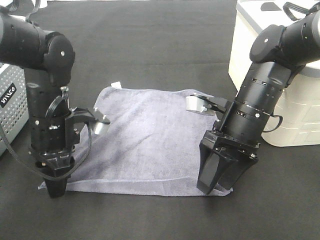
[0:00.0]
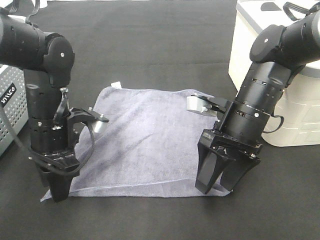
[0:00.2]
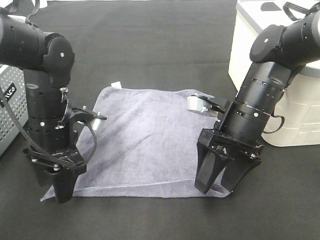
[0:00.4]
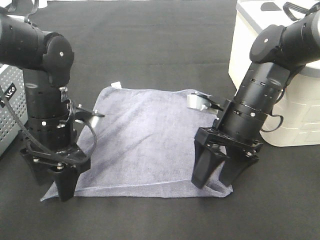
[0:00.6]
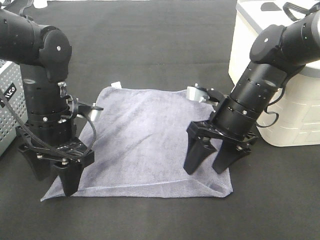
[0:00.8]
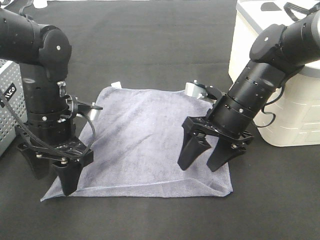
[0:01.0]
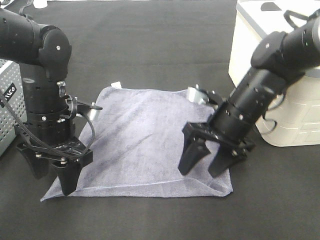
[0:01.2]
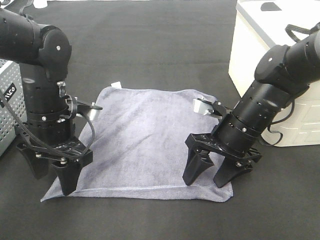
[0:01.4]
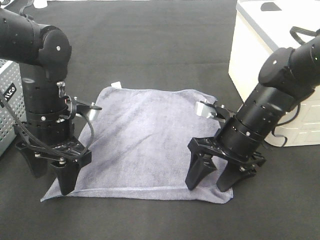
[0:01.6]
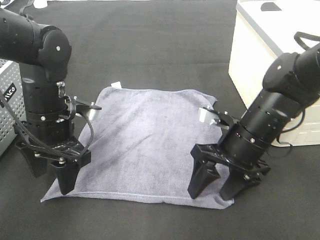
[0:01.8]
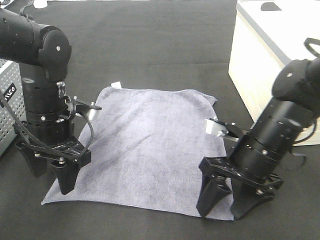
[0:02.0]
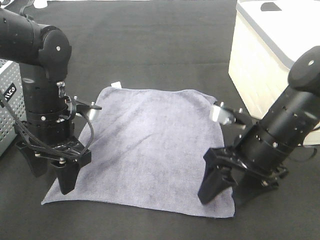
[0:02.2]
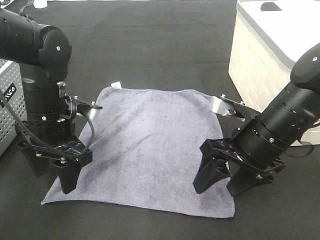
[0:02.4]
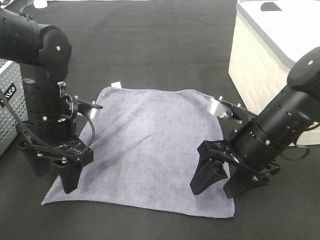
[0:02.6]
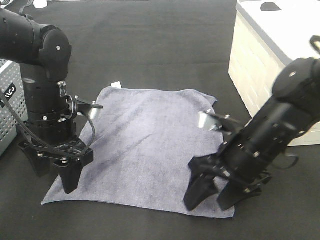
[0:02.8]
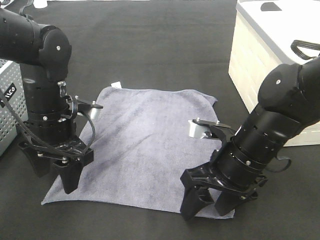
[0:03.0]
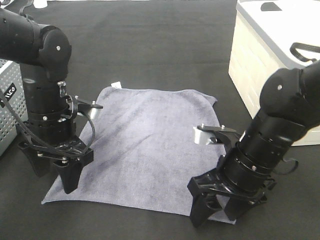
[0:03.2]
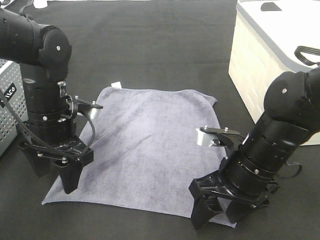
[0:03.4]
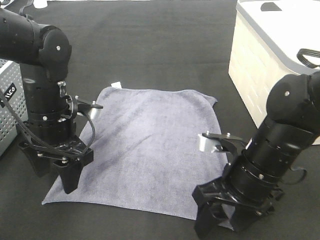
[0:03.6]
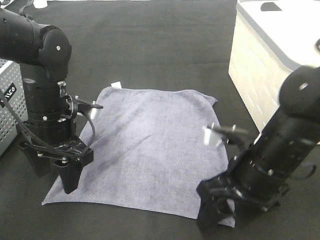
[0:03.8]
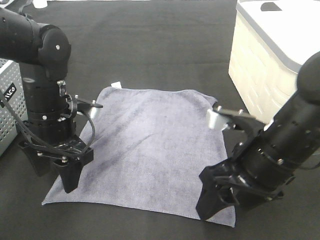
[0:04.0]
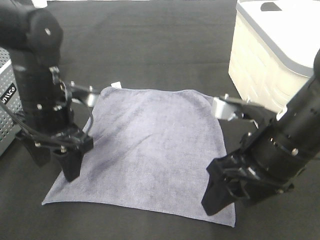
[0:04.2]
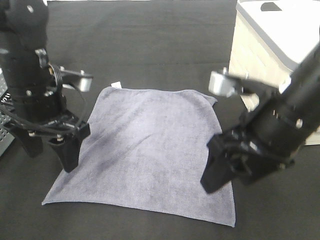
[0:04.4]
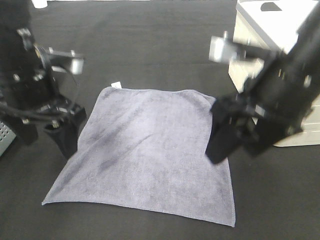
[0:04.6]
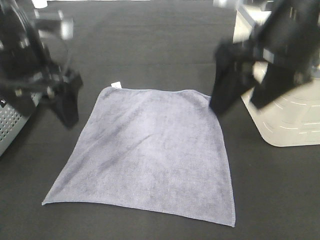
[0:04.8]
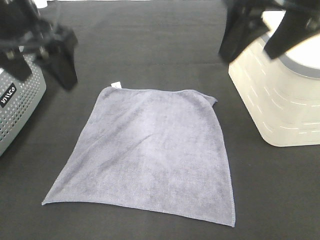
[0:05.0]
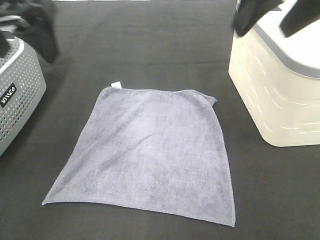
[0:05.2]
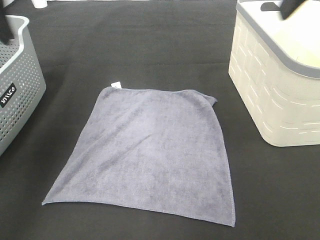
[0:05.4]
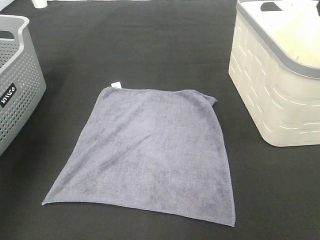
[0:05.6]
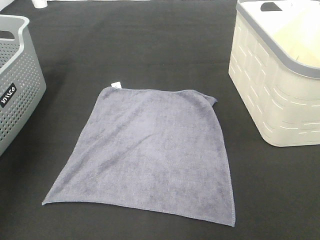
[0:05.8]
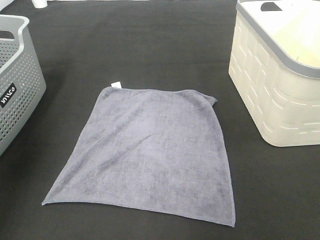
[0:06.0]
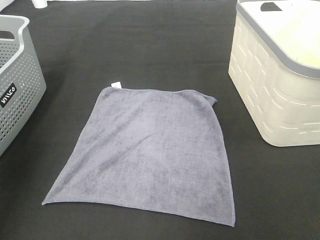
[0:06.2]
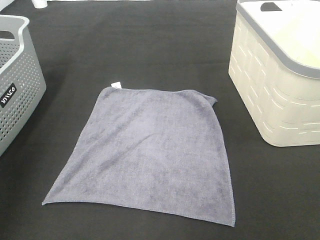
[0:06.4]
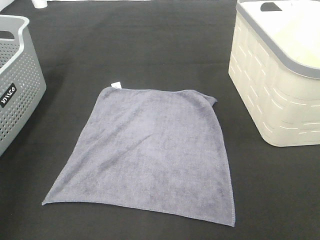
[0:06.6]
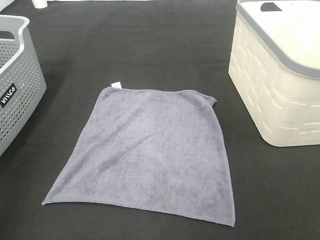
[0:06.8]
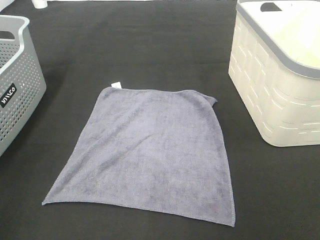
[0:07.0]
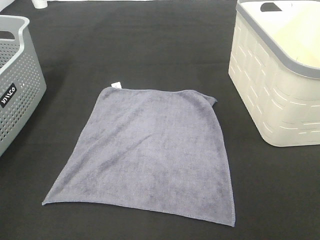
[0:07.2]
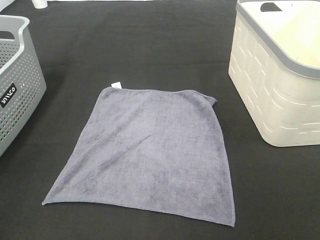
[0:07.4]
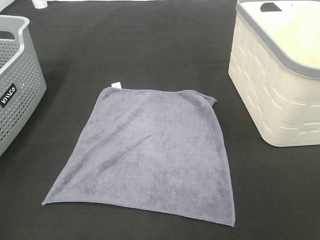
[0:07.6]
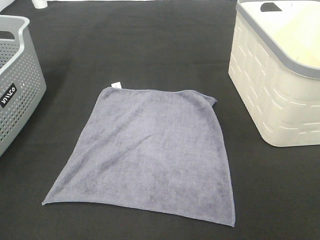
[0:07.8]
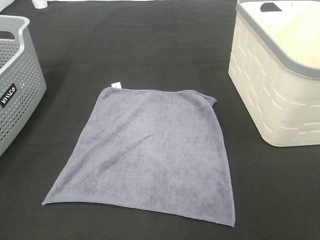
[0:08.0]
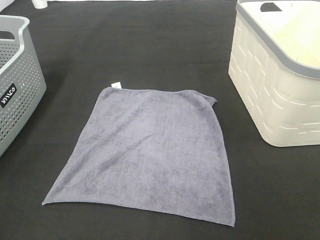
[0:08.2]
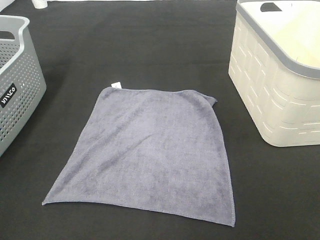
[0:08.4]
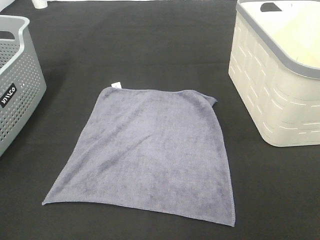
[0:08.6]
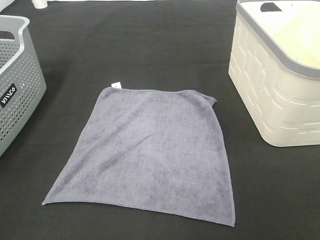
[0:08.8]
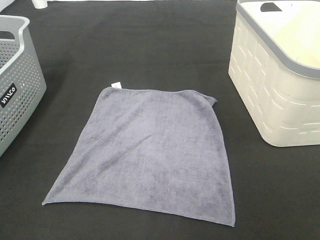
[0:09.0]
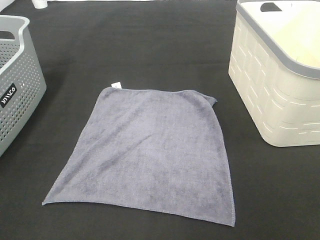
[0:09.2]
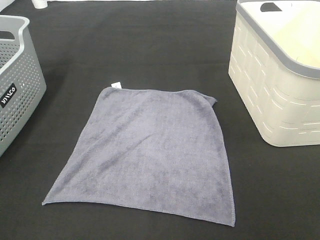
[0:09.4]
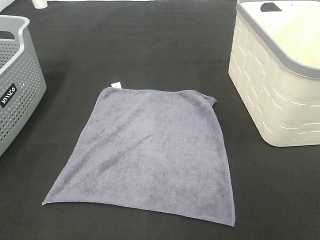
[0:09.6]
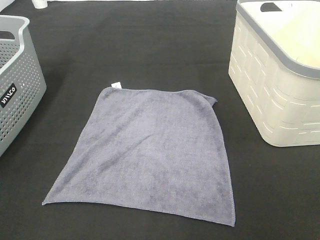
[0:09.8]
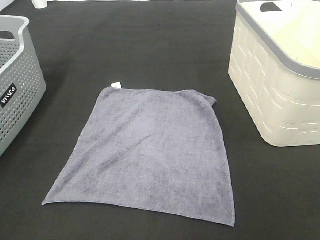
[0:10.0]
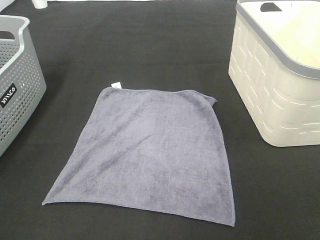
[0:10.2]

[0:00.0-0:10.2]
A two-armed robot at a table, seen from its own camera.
Task of the whole recording: Remove the towel and place it.
0:01.4 to 0:03.0: The right gripper moves backward, some 5 cm.
0:03.0 to 0:04.4: The left gripper travels upward by roughly 5 cm, while the right gripper travels upward by about 10 cm.
0:04.4 to 0:05.8: The left gripper is displaced upward and to the left by about 25 cm, while the right gripper heads upward and to the right, covering approximately 20 cm.
0:08.8 to 0:10.2: Both grippers stay put.

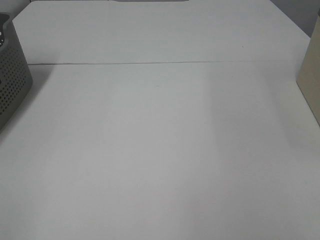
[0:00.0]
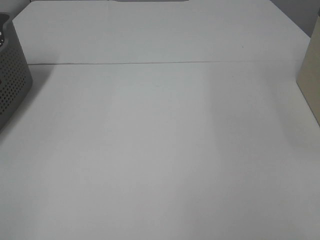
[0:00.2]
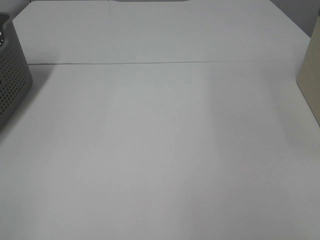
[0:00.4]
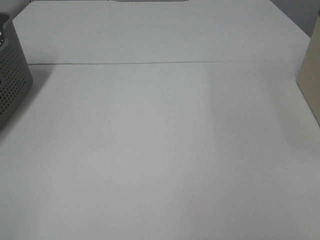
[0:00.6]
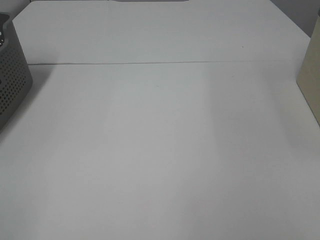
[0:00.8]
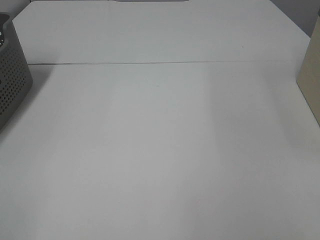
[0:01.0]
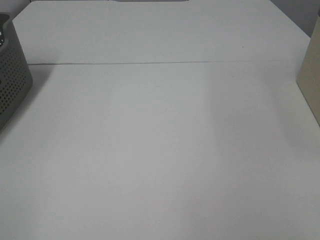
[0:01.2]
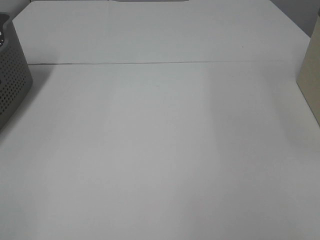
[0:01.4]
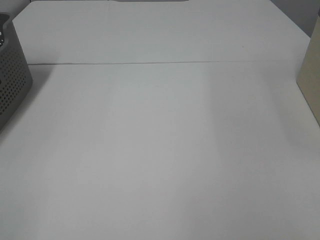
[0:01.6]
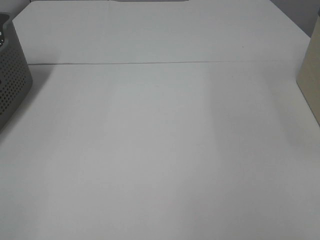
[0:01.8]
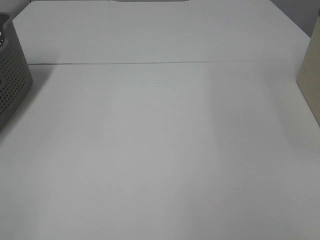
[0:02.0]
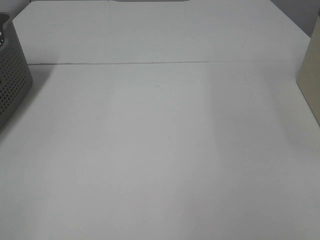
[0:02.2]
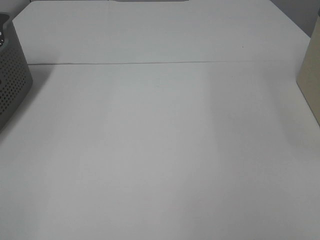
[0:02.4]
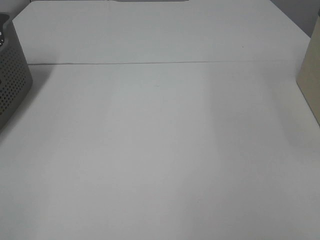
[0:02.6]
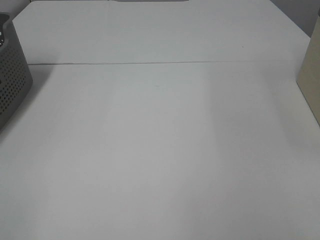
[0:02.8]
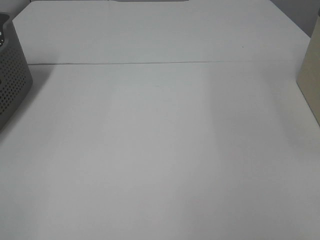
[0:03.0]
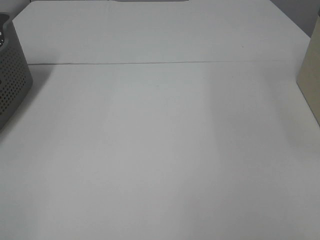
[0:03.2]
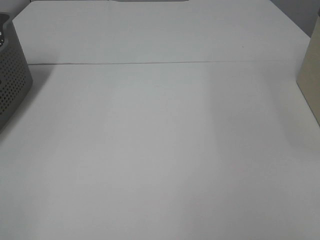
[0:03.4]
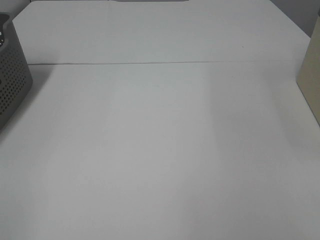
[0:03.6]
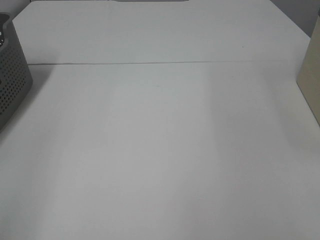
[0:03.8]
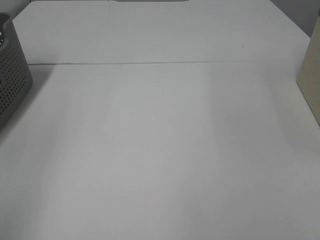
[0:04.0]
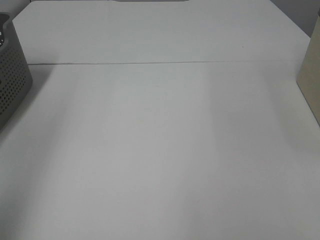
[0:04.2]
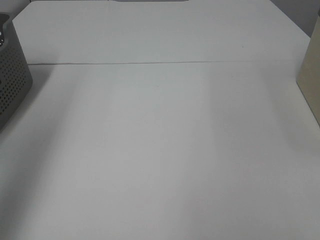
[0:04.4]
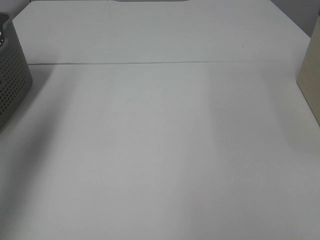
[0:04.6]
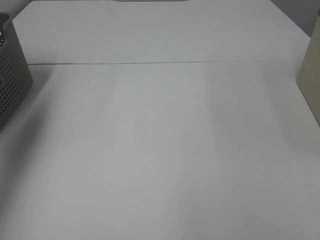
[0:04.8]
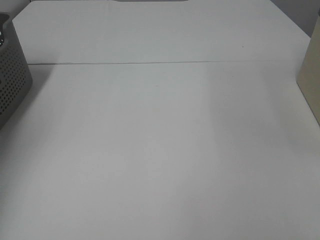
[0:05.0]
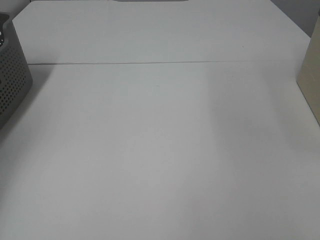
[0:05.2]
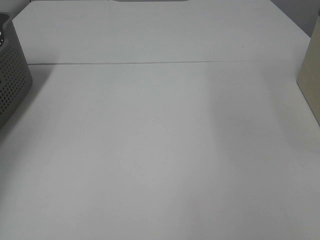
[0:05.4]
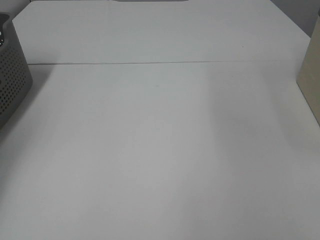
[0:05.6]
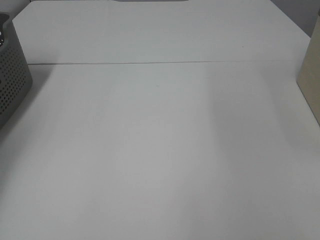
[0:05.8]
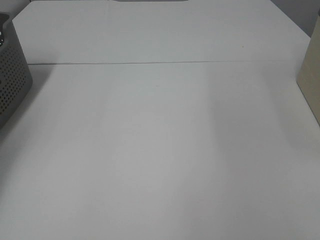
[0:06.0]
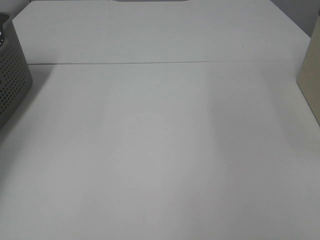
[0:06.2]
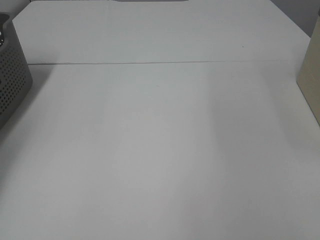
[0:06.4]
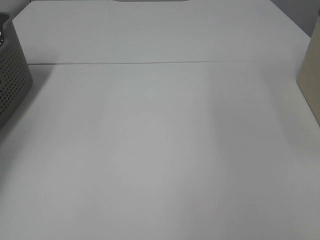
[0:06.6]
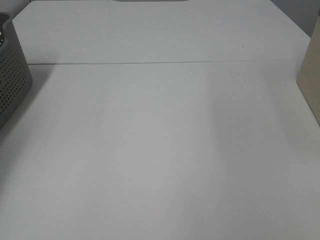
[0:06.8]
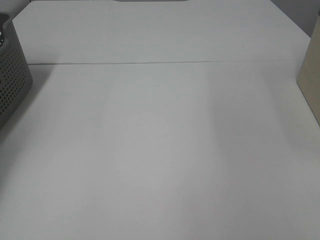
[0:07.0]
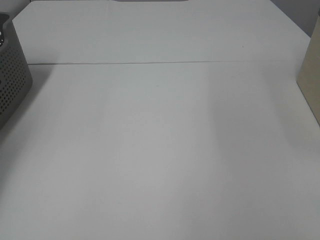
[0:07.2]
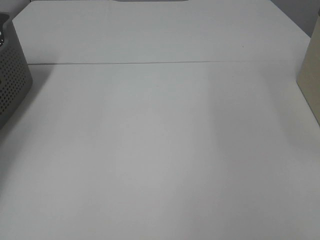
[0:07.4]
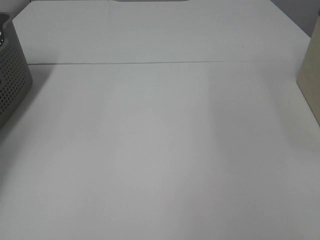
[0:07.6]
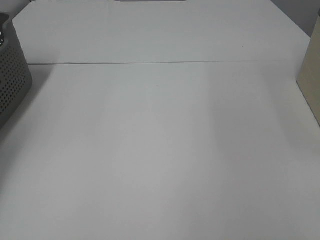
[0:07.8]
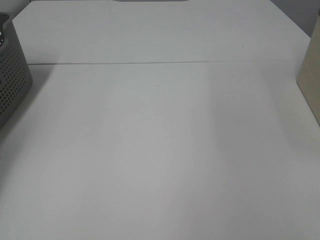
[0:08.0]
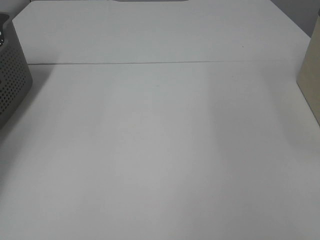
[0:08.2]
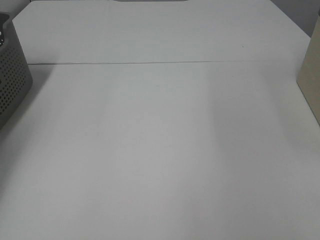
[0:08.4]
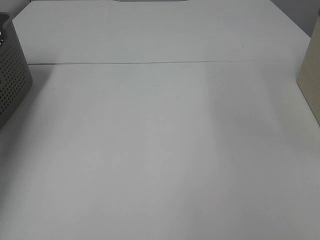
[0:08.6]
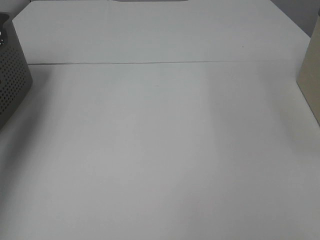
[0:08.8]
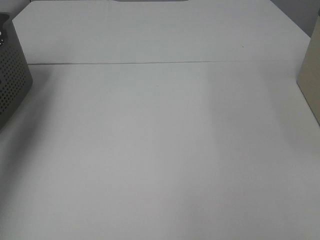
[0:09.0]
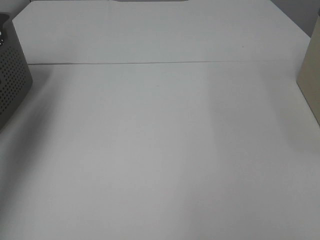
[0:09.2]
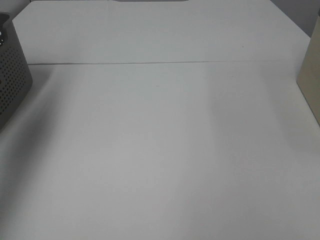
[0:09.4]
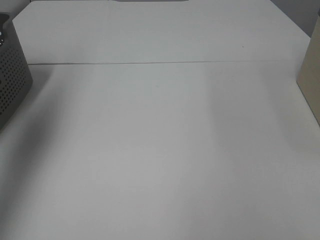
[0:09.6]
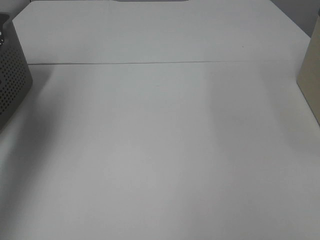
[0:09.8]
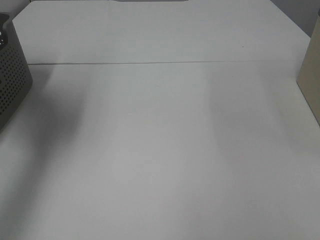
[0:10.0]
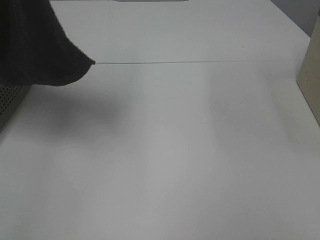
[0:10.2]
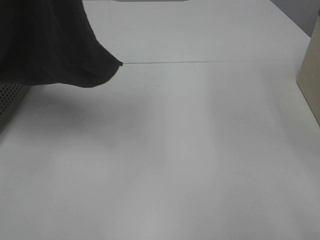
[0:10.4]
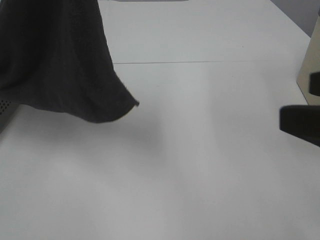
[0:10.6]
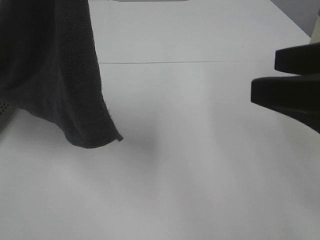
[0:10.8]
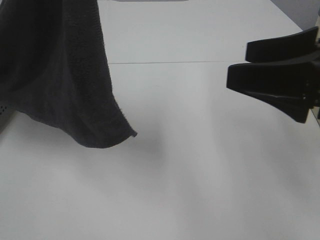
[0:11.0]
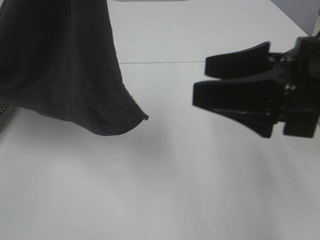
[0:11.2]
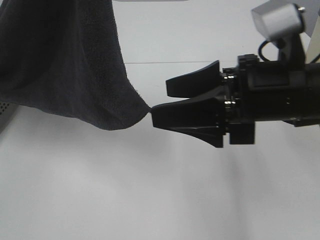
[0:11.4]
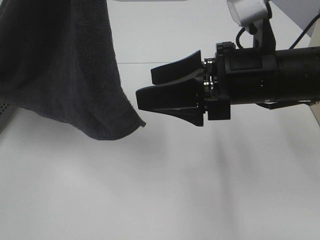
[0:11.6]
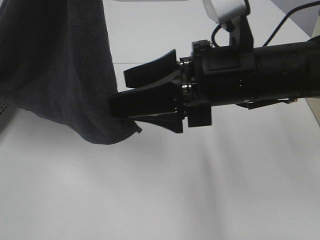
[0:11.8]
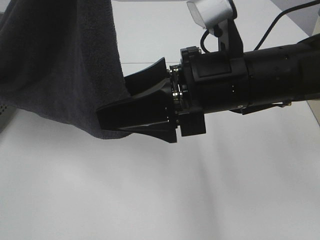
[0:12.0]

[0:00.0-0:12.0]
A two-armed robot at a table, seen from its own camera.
Task of the whole recording: Remove the towel and place it.
0:00.0 to 0:03.0: The two grippers keep their place.
0:03.0 to 0:04.4: The left gripper goes some 25 cm forward and upward.
0:04.4 to 0:06.0: The left gripper travels forward, downward and to the left by approximately 35 cm.
0:07.6 to 0:09.0: The left gripper goes some 20 cm upward and to the right, and closes up.
0:09.0 to 0:10.4: The right gripper heads forward, covering about 5 cm, while the left gripper heads to the right, backward and upward, covering approximately 30 cm.
0:10.4 to 0:12.0: The right gripper heads to the left and forward, covering roughly 25 cm.
